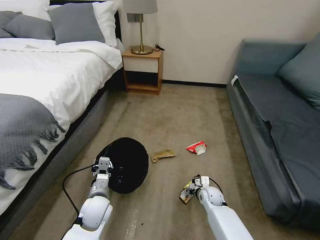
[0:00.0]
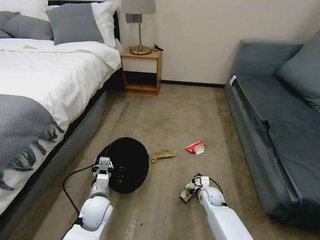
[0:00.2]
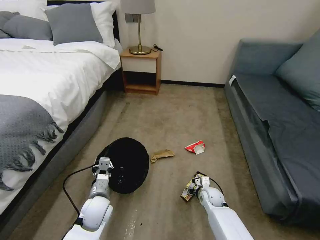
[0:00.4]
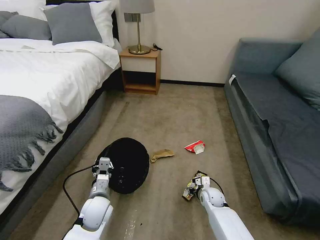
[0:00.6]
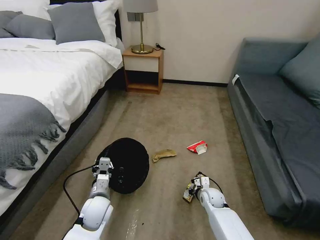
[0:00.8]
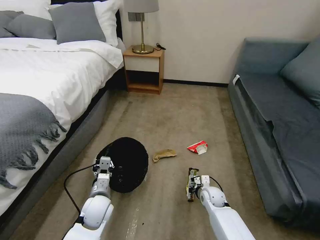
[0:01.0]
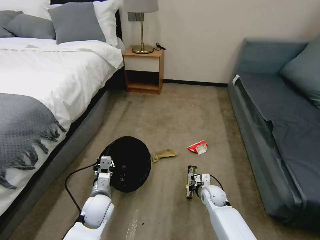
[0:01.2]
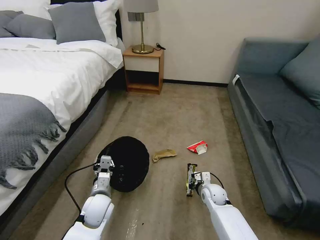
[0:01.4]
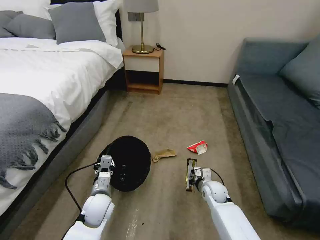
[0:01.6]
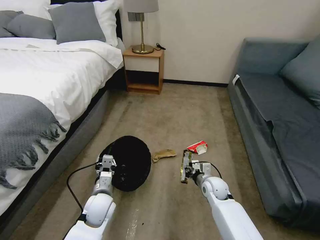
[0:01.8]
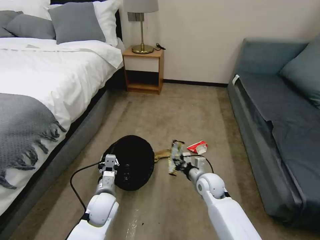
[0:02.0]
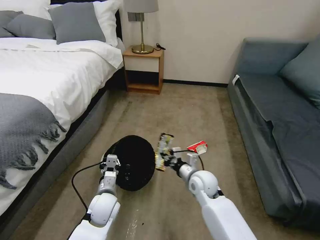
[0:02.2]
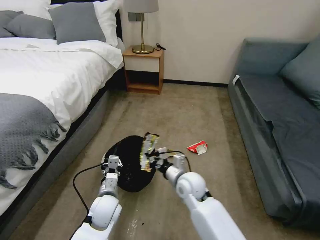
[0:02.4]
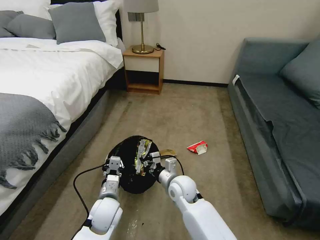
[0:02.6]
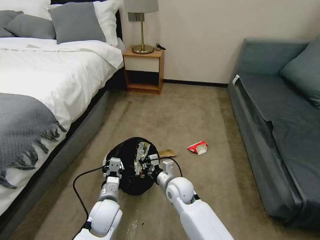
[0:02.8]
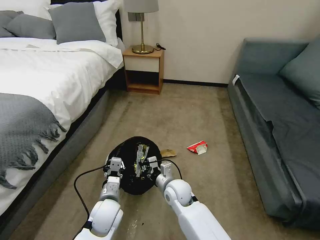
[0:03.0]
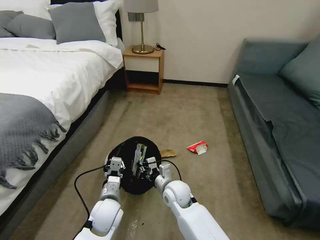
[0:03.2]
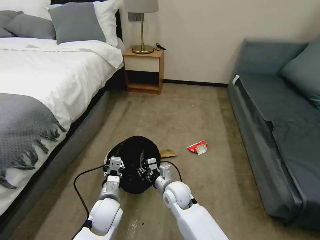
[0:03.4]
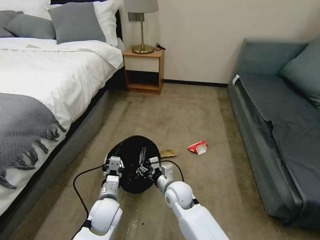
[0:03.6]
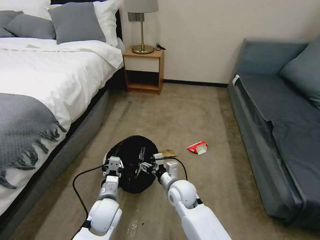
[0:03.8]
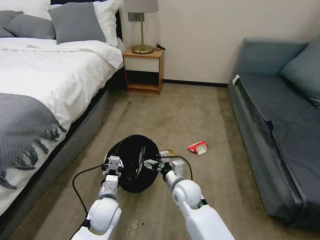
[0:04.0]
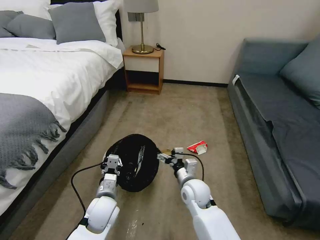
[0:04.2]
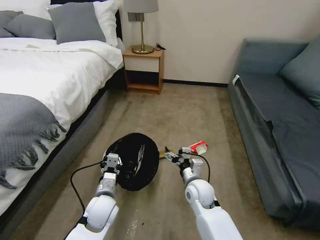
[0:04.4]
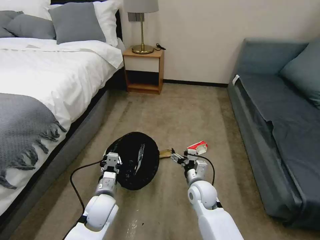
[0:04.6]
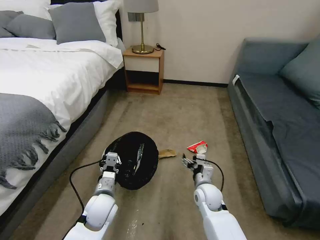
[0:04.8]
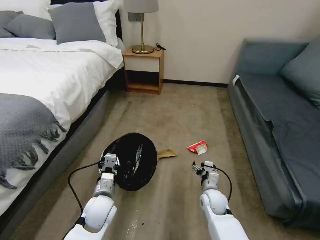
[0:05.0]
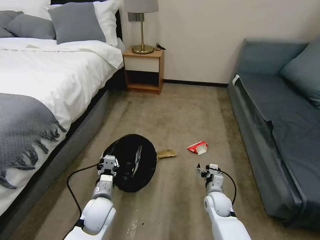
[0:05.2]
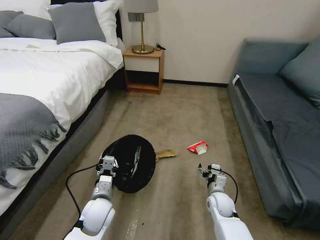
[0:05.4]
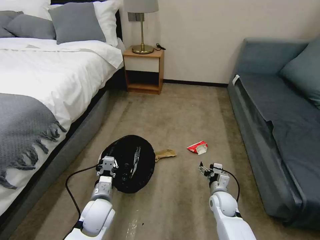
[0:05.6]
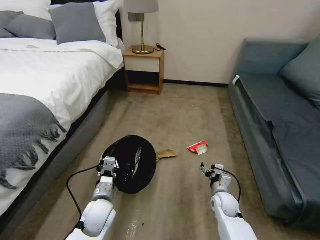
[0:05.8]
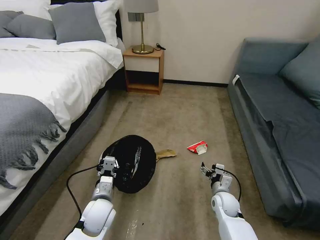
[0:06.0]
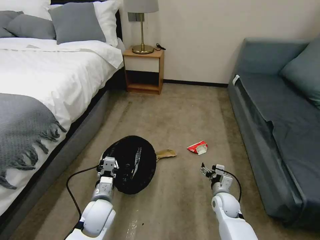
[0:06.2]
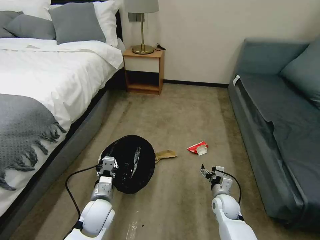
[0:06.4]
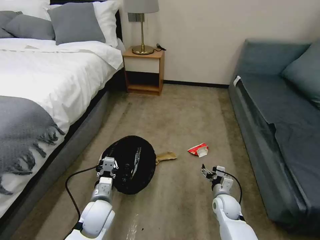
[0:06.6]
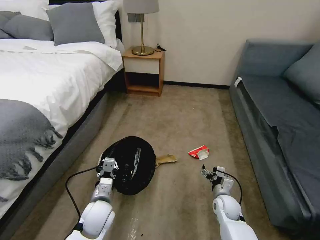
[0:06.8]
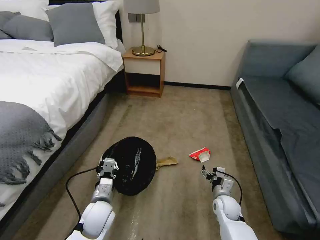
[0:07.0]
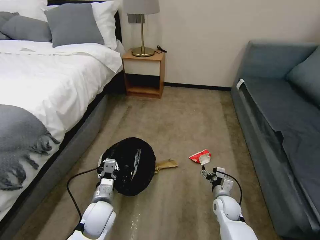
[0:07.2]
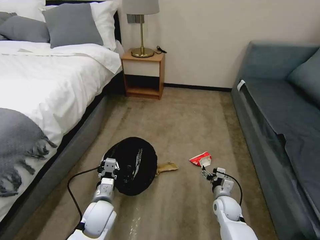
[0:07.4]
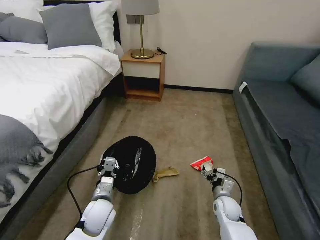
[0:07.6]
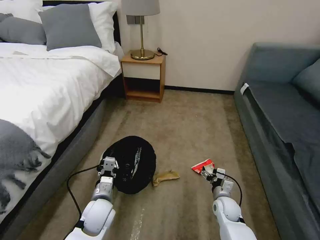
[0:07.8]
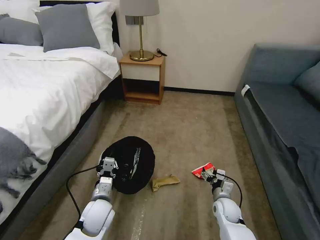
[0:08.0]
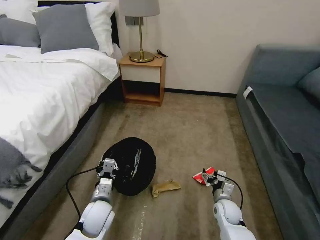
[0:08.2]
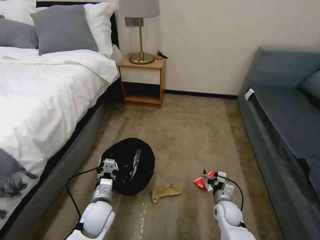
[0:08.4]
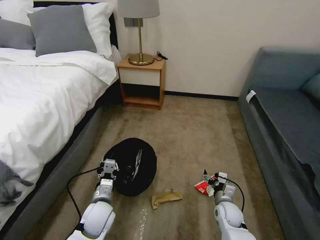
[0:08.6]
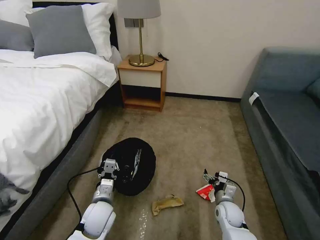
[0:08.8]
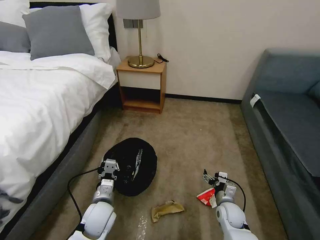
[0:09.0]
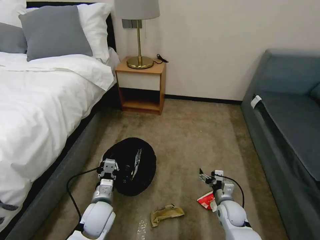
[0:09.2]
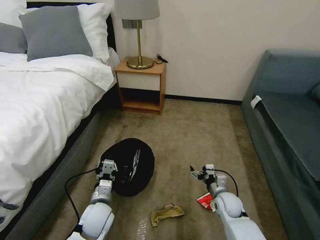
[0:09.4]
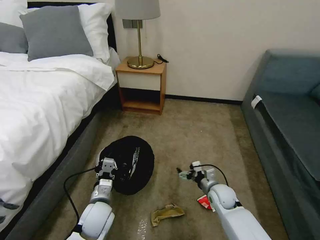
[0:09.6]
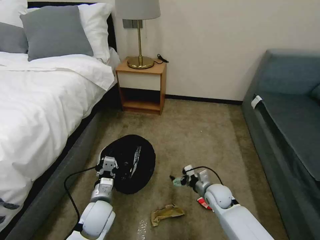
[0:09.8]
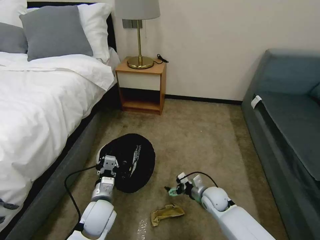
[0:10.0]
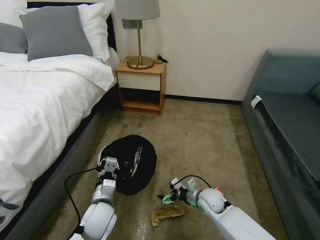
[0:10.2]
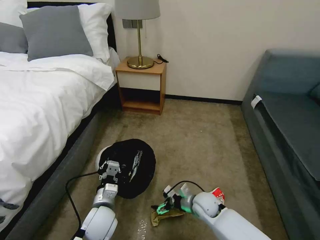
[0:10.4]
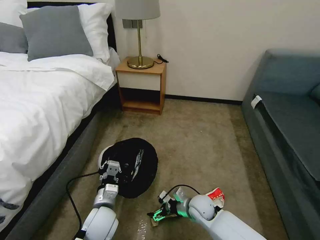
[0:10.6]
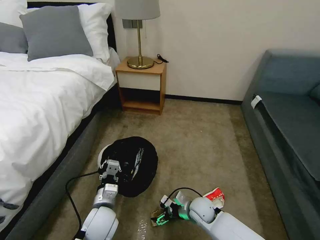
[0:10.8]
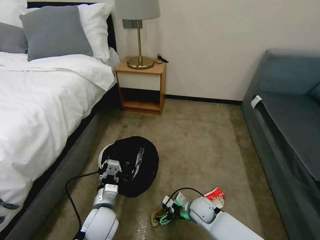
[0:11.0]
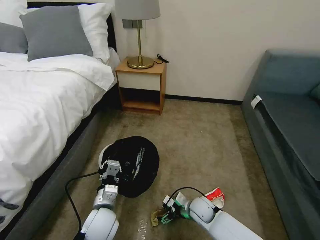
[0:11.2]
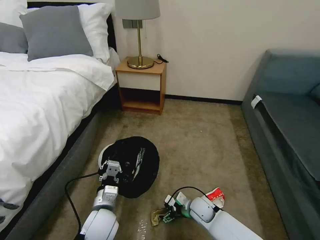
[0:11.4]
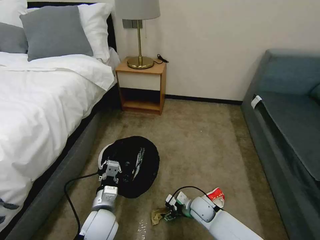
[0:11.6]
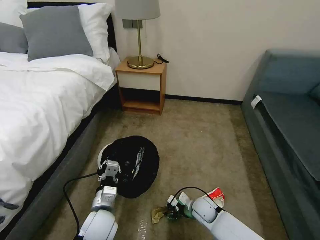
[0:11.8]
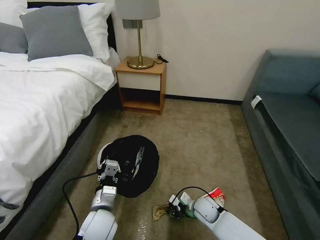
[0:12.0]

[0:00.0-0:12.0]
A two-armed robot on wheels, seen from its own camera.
Task of the whole recording: Pick up the trash bin, then pick up the garbage on the floor and place it into the trash bin.
0:00.0 to 0:01.6: The right gripper goes roughly 5 cm upward, and closes up.
0:01.6 to 0:03.0: The right gripper moves to the left and upward, about 20 cm.
0:03.0 to 0:04.4: The right gripper goes roughly 5 cm to the right, and opens.
0:04.4 to 0:06.0: The right gripper heads to the right and downward, covering approximately 15 cm.
0:09.0 to 0:10.4: The right gripper heads to the left, covering roughly 10 cm.
0:10.4 to 0:12.0: The right gripper closes.

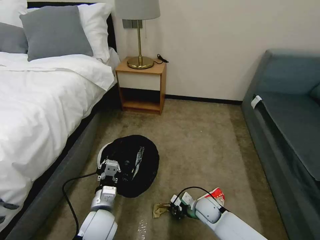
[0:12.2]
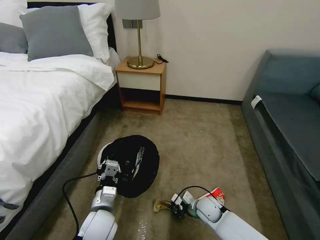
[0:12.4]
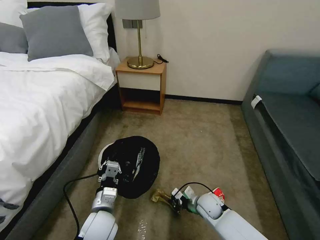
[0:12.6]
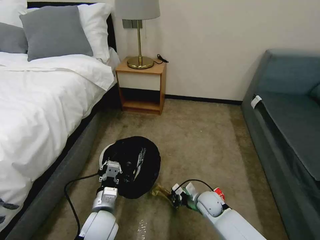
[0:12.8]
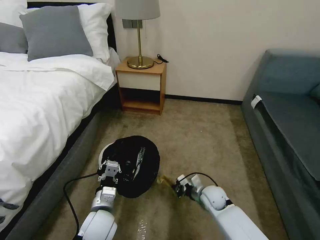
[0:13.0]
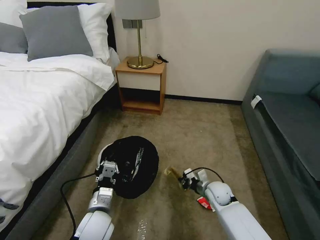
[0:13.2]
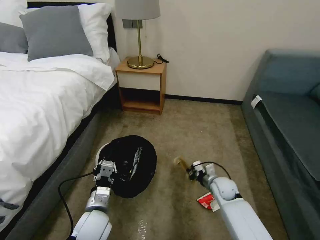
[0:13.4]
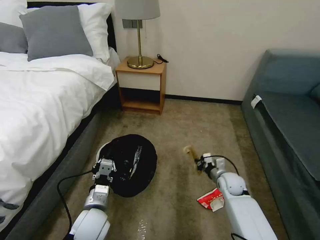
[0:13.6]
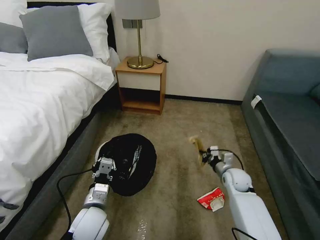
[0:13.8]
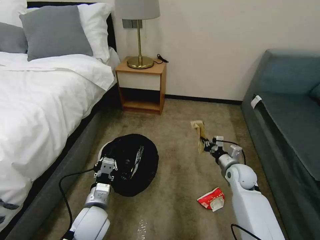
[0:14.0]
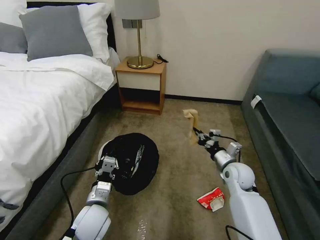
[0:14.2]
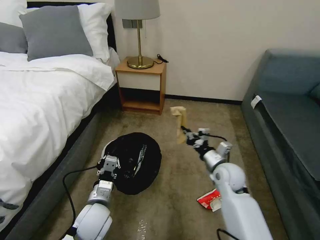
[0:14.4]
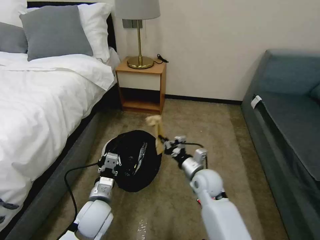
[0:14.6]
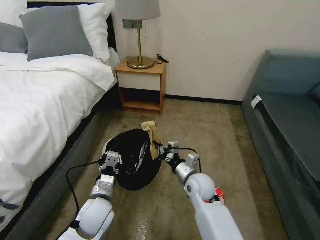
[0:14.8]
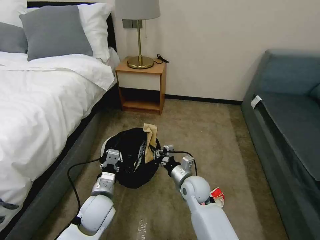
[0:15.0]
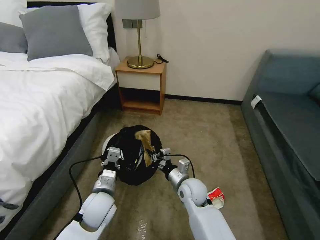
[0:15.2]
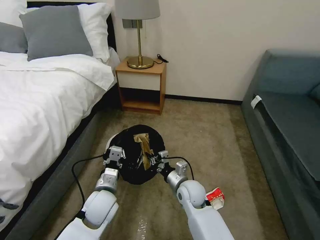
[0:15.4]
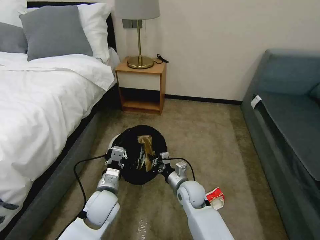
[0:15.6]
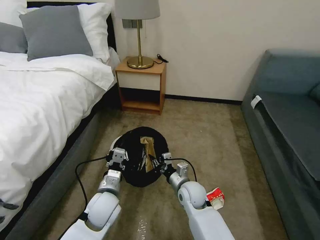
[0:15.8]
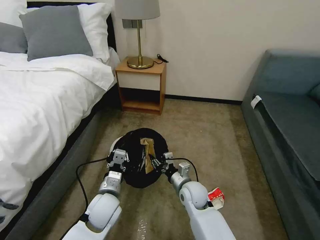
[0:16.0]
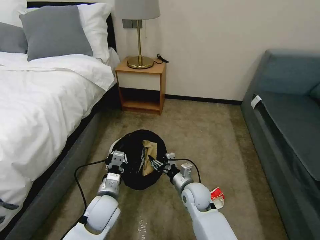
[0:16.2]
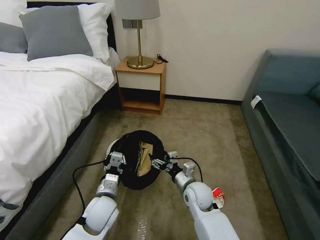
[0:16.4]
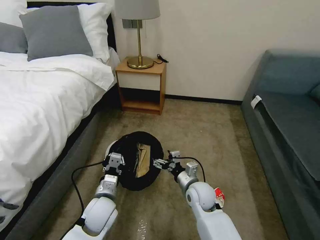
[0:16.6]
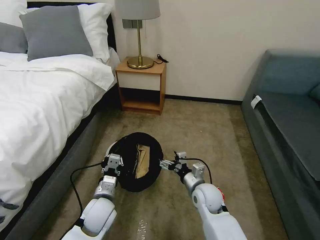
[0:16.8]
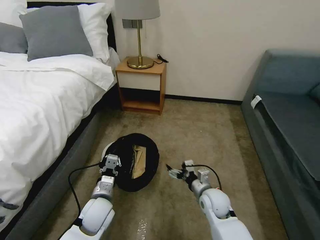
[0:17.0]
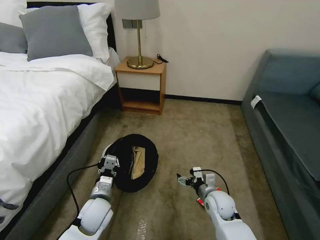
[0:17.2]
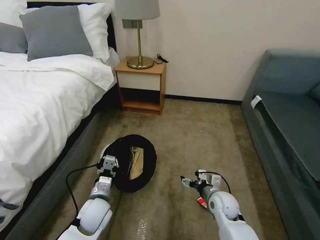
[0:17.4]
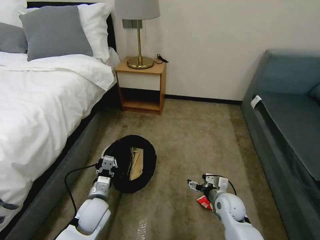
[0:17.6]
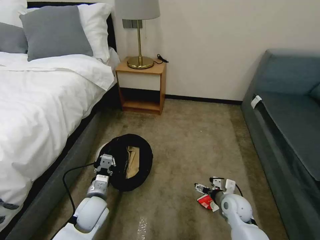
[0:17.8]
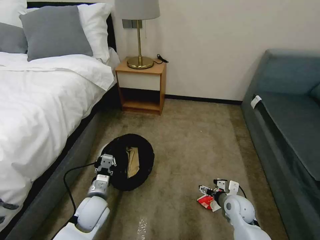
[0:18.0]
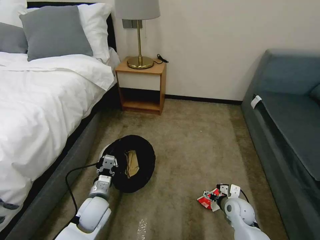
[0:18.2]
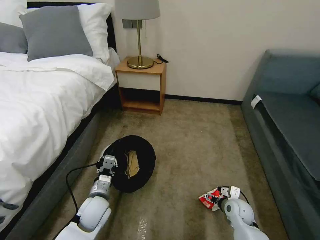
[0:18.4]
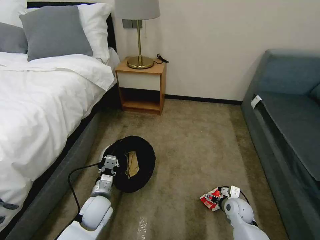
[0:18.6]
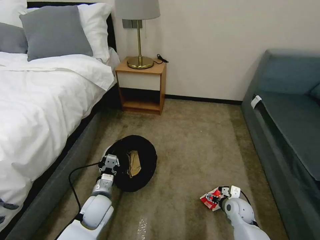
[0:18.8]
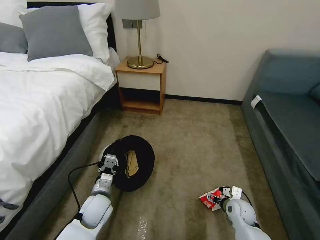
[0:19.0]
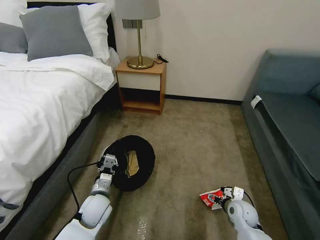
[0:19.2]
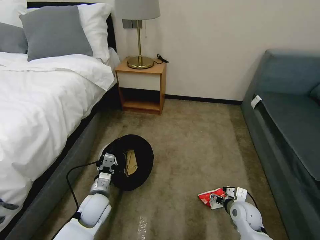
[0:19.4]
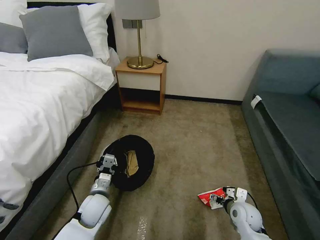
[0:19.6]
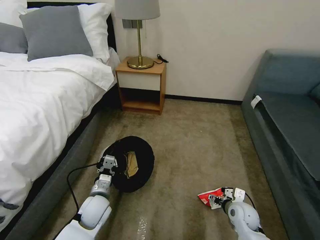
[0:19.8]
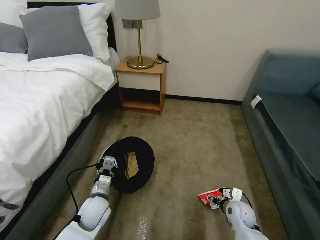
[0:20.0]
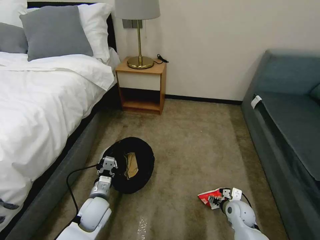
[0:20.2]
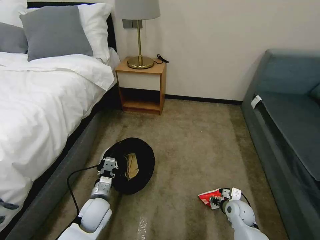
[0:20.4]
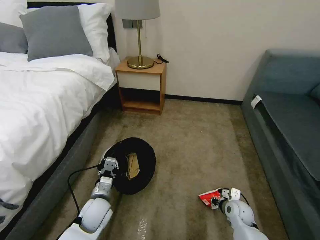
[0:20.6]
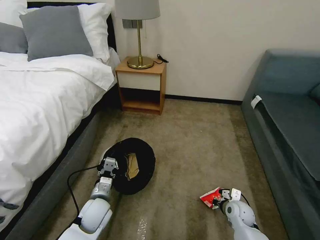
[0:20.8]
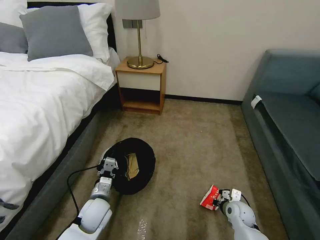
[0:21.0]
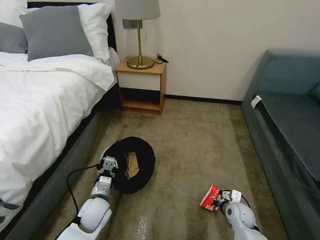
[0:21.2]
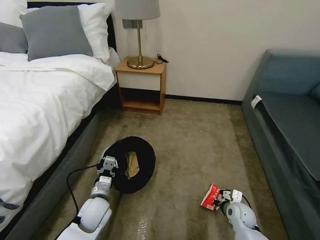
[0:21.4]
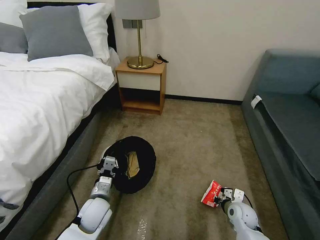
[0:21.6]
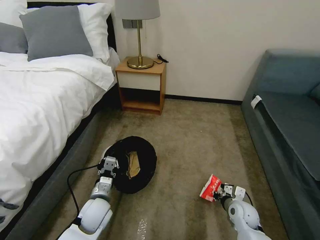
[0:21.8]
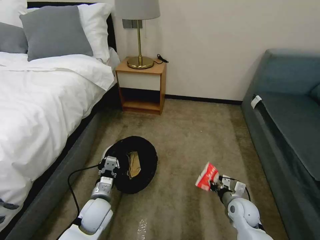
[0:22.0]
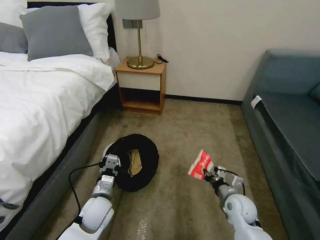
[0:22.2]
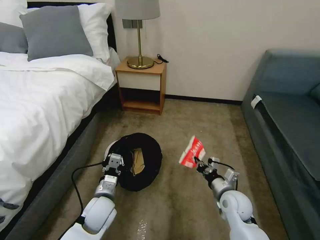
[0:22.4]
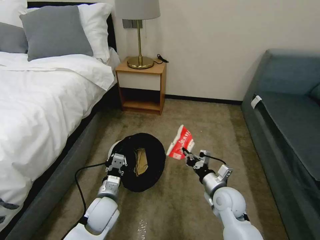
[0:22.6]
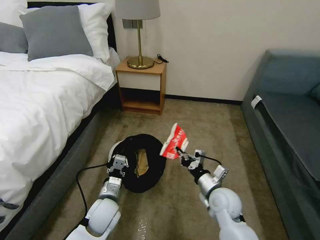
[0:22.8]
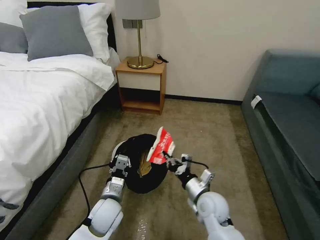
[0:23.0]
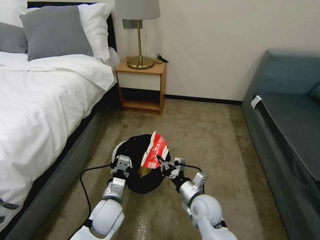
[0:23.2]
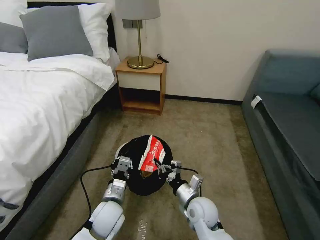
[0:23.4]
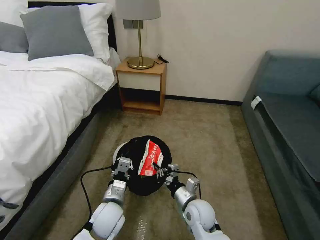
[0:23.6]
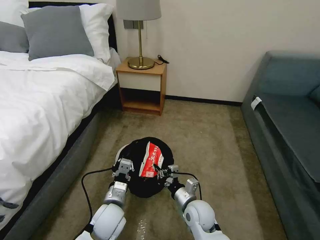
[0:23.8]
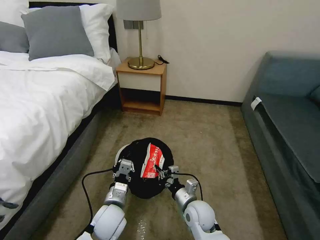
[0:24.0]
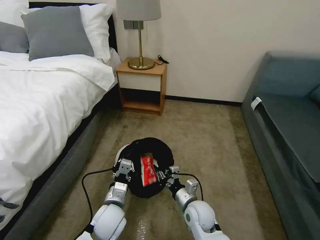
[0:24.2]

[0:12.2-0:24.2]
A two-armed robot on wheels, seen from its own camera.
Task of the whole recording: Pick up the trash bin, then pick up the garbage on the floor and place it into the trash bin.
0:12.2 to 0:13.8: The right gripper travels to the right, upward and forward by some 15 cm.
0:13.8 to 0:15.2: The right gripper heads to the left, covering some 20 cm.
0:15.2 to 0:16.6: The right gripper opens its fingers.
0:16.6 to 0:18.2: The right gripper goes approximately 15 cm to the right and downward.
0:18.2 to 0:19.8: The grippers move only a little.
0:19.8 to 0:21.2: The right gripper closes its fingers.
0:21.2 to 0:22.6: The right gripper travels upward and to the left by approximately 15 cm.
0:22.6 to 0:24.2: The right gripper goes roughly 10 cm to the left and downward.
